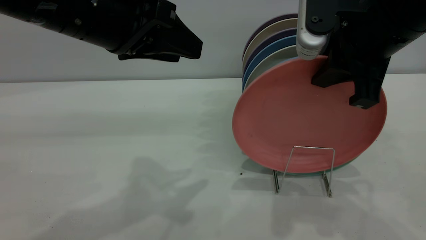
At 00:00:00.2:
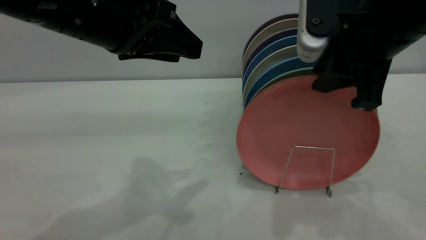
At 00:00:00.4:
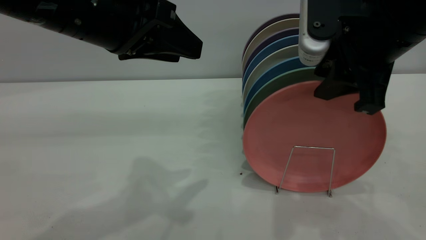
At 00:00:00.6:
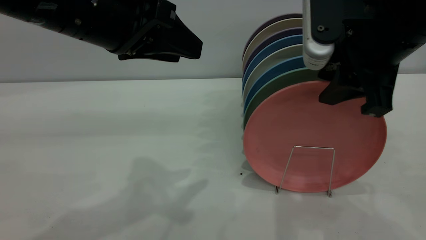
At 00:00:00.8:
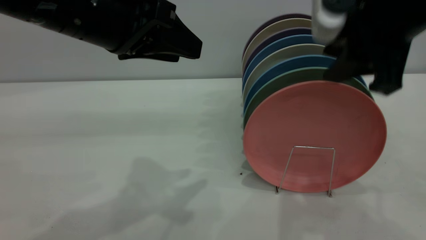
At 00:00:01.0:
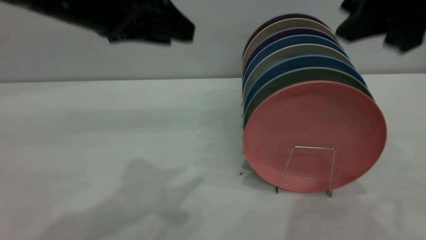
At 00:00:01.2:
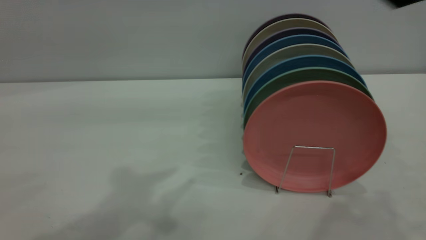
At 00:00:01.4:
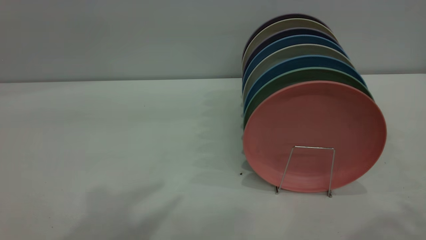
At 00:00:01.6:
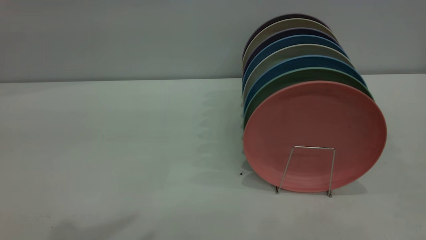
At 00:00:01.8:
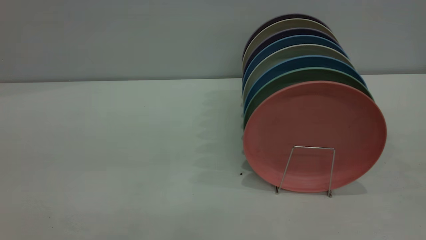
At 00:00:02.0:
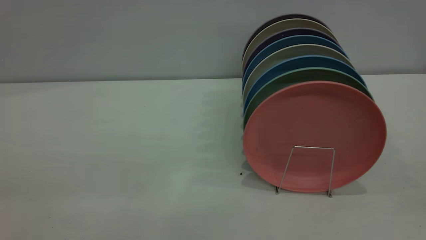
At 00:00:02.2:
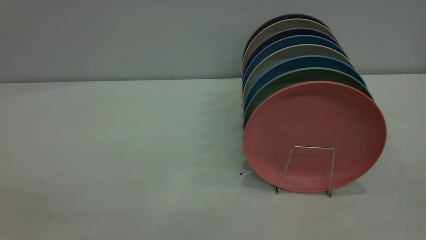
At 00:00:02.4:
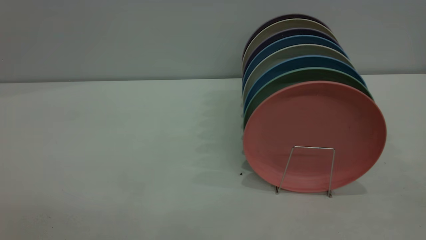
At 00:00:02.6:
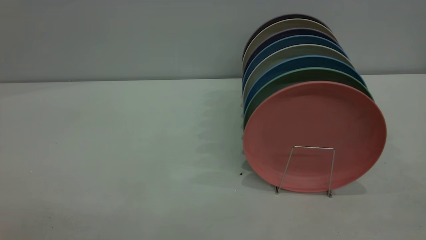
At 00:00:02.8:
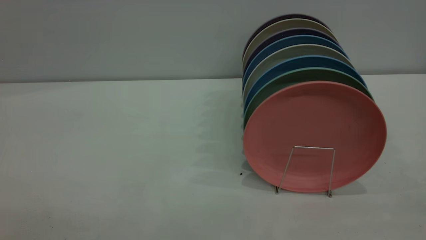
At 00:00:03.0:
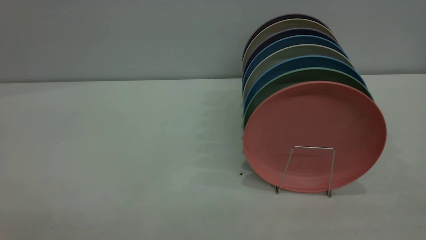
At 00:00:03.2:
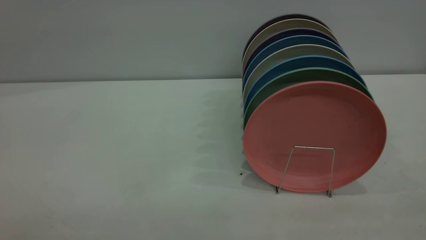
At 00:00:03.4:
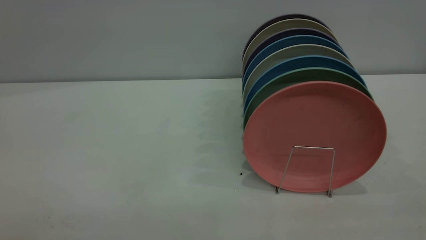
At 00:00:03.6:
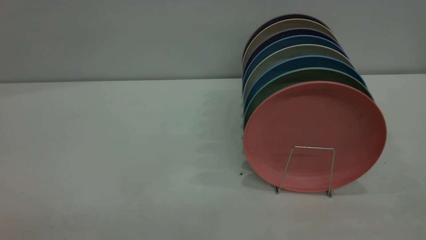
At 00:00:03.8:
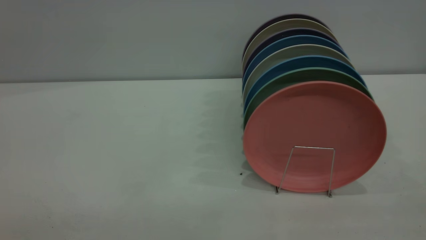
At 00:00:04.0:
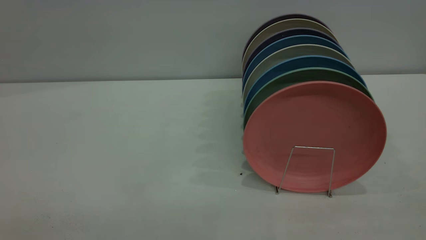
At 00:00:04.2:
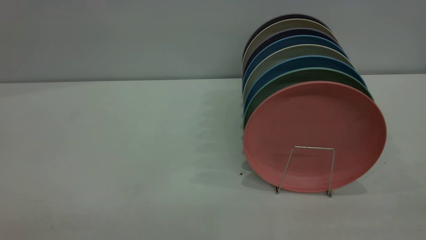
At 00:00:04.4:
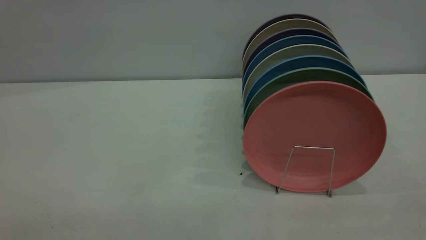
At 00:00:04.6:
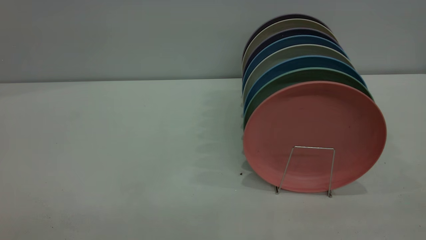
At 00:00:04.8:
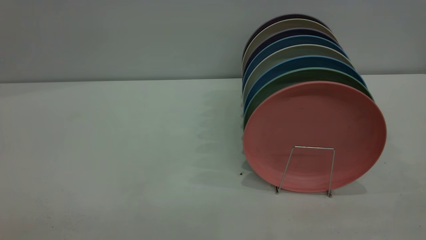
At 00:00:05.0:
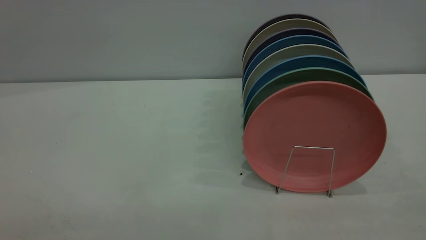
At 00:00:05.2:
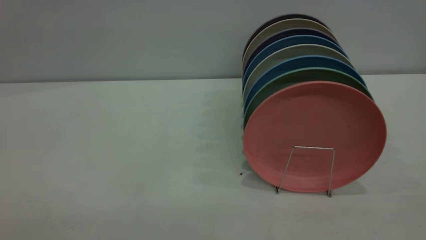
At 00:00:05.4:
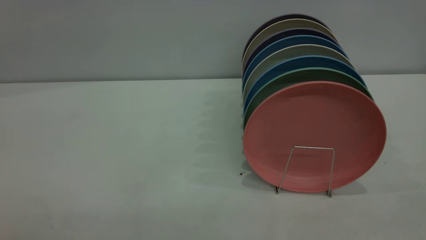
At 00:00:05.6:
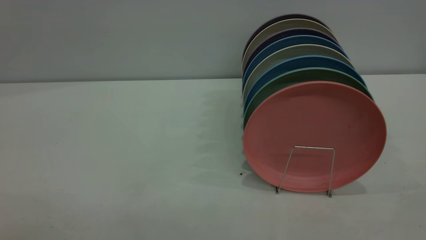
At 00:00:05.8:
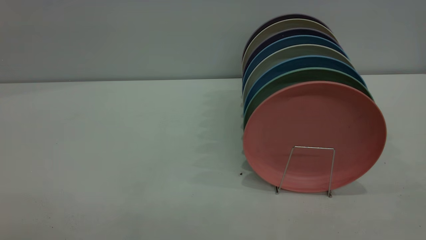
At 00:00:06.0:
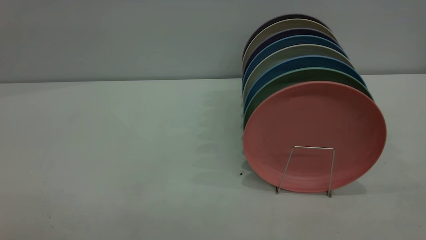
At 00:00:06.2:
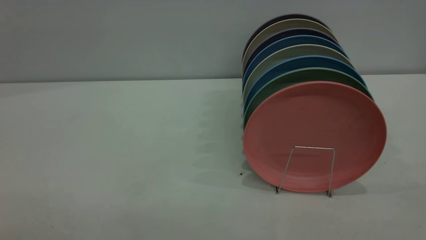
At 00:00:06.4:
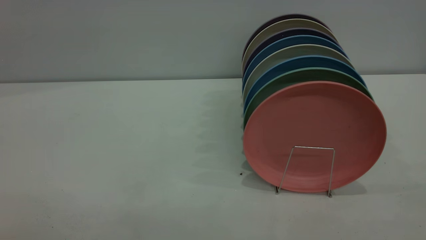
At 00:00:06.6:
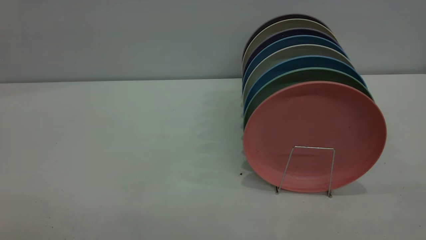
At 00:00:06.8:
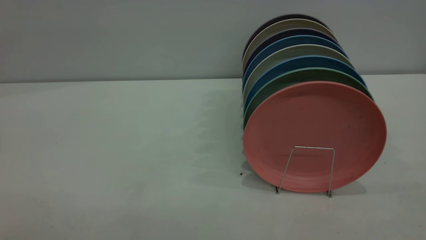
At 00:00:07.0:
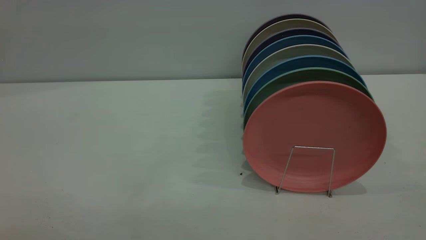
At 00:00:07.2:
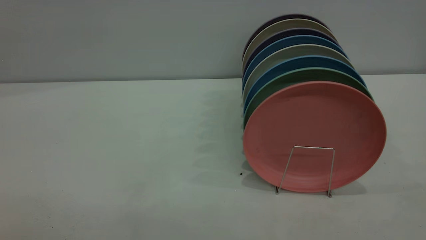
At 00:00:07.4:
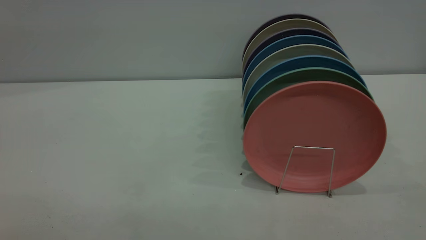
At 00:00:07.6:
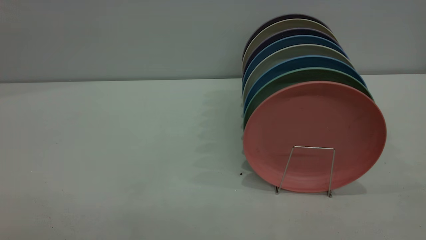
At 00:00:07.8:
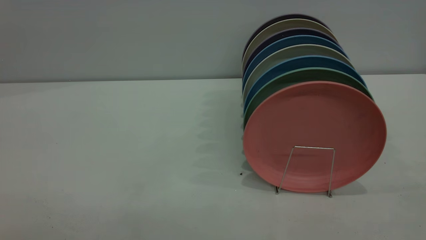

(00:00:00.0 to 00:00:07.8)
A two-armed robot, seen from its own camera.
Task of the whole recording: put the plate on the plate rack.
00:00:00.0 - 00:00:01.6: The left gripper shifts roughly 20 cm backward, upward and to the left, while the right gripper shifts some 25 cm backward, upward and to the right, and opens up.
00:00:06.2 - 00:00:07.8: Both grippers stay about where they are.
